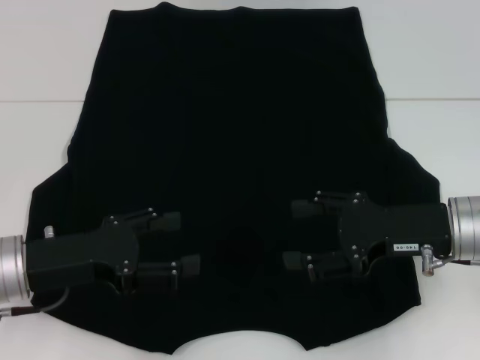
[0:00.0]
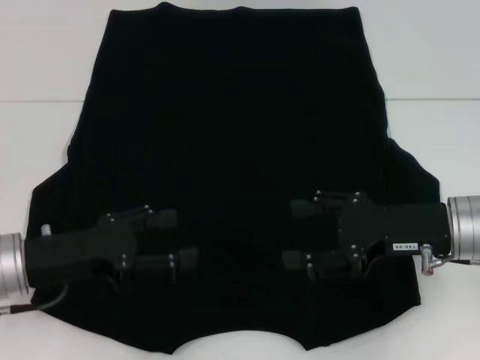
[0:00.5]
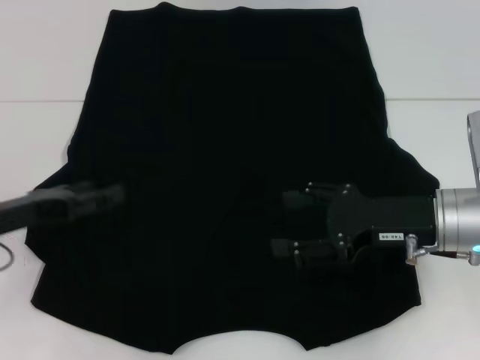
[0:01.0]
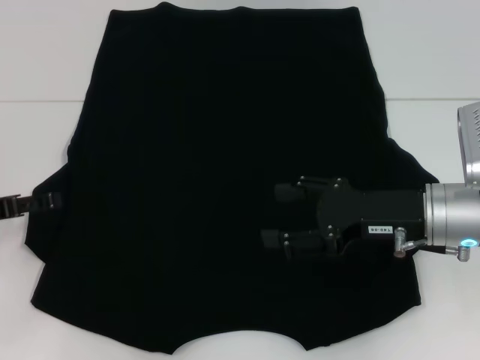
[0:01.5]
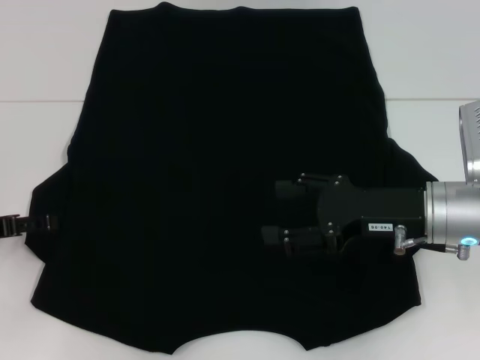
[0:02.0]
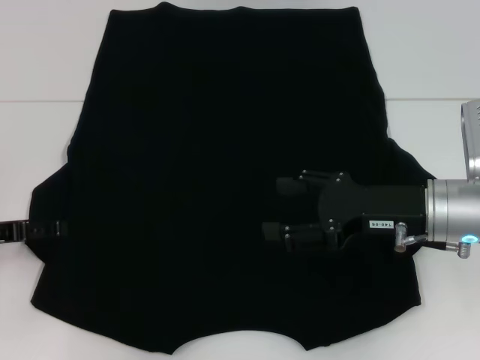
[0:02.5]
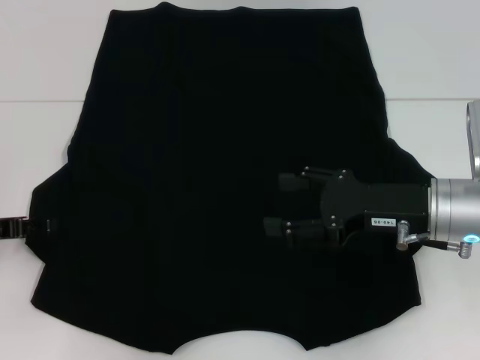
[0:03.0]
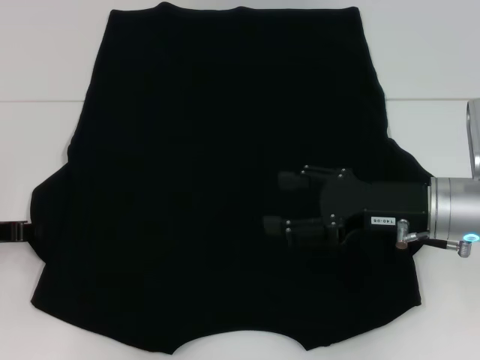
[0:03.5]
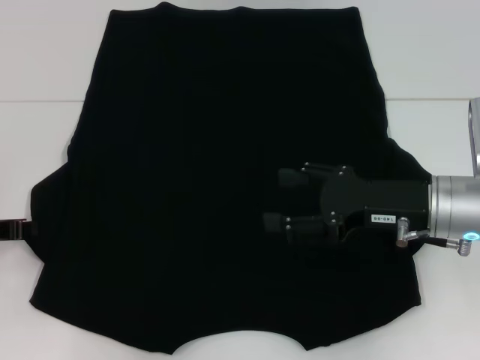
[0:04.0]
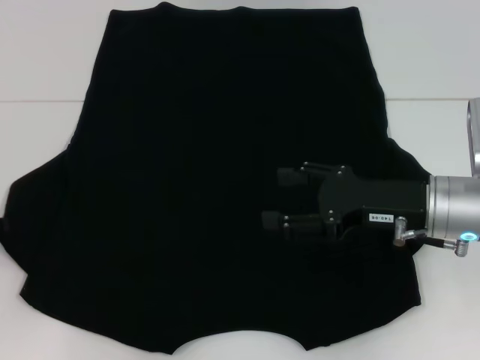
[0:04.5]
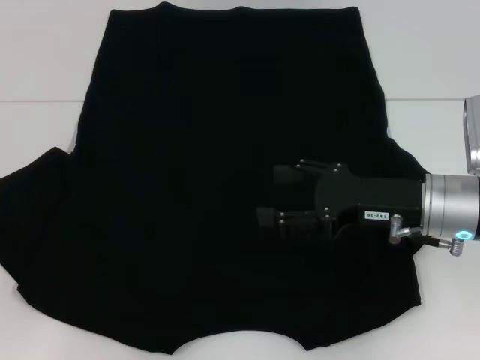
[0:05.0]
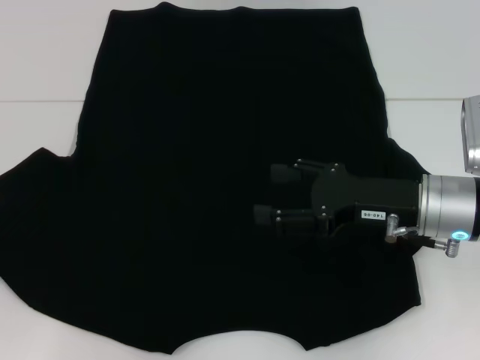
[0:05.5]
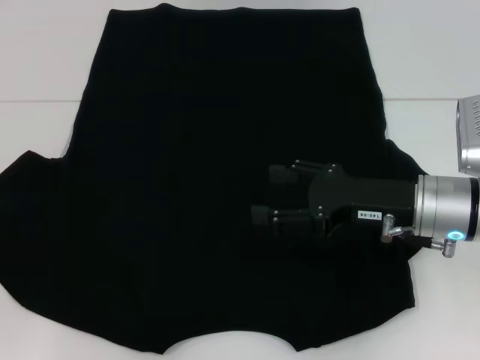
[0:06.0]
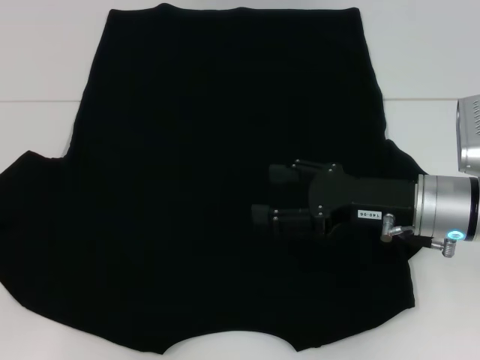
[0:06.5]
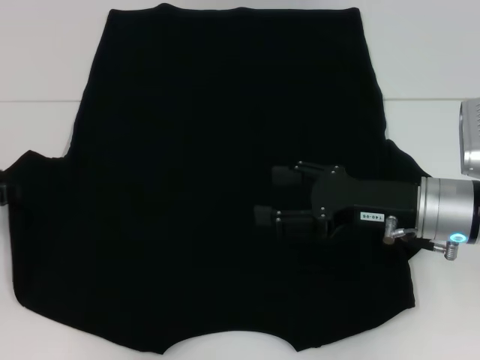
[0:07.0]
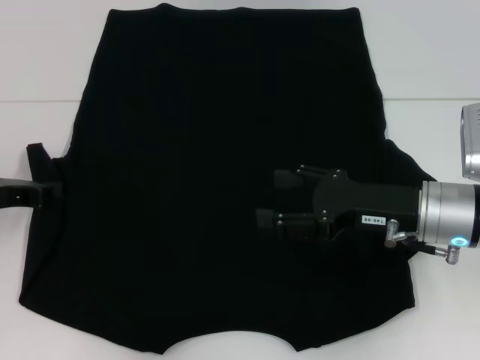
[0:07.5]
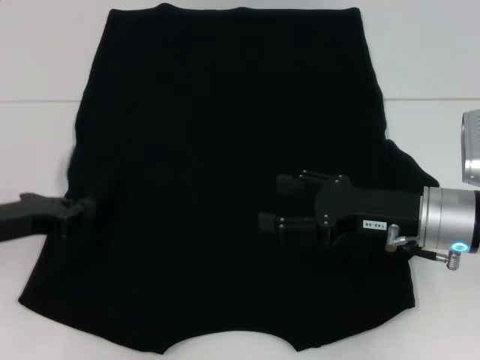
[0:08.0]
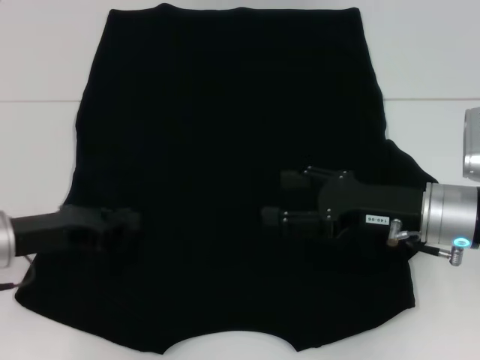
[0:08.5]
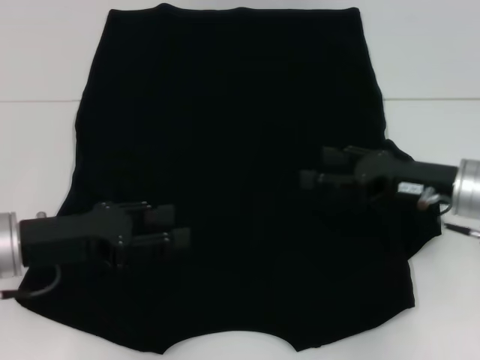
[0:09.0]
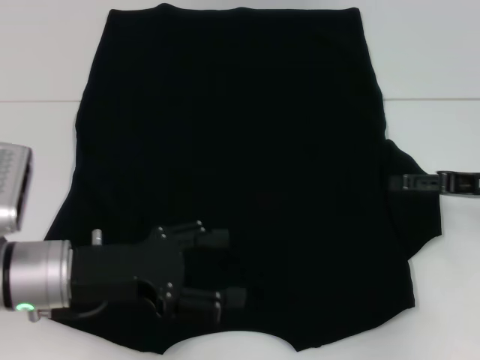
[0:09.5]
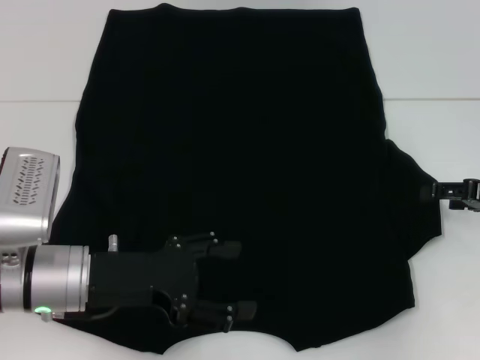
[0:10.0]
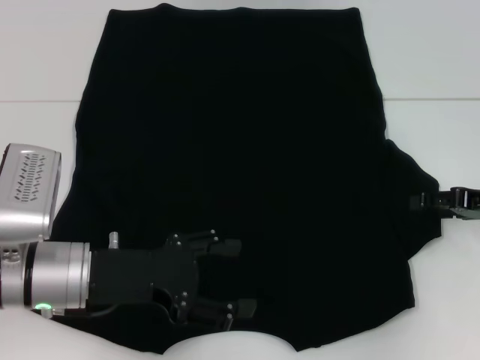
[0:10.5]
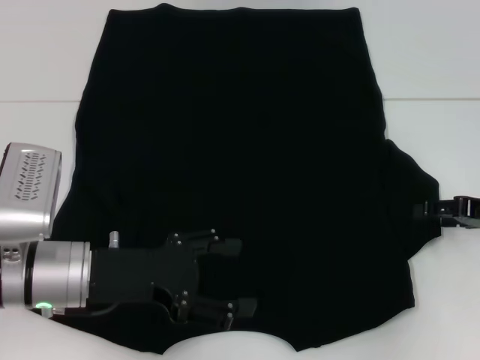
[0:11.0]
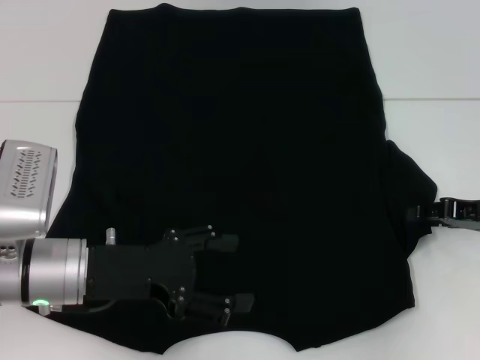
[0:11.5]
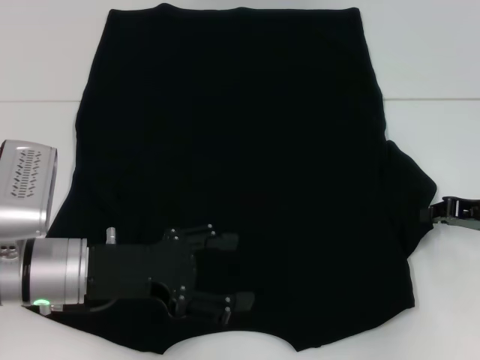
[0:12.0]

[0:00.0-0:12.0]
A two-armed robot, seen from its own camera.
Step, 0:00.0 to 0:08.5: Fold the bottom left sleeve with your left hand.
0:00.0 to 0:02.0: The left gripper travels to the left by some 10 cm.
0:04.0 to 0:06.0: The left gripper shifts about 5 cm to the left.
0:06.0 to 0:08.0: The left gripper is displaced to the right by roughly 10 cm.
0:08.0 to 0:10.0: Both grippers travel together to the right, roughly 10 cm. The left gripper opens.
0:10.0 to 0:12.0: The right gripper closes its fingers.

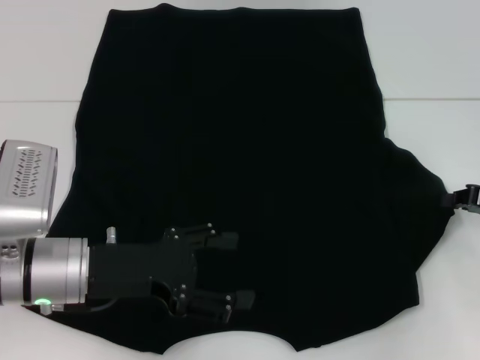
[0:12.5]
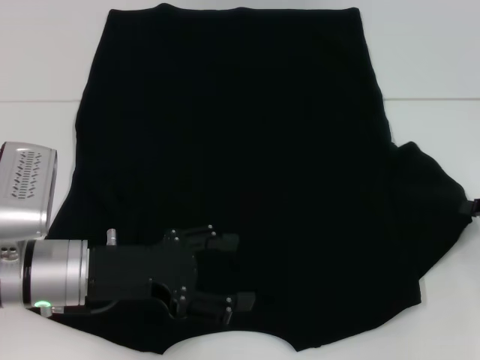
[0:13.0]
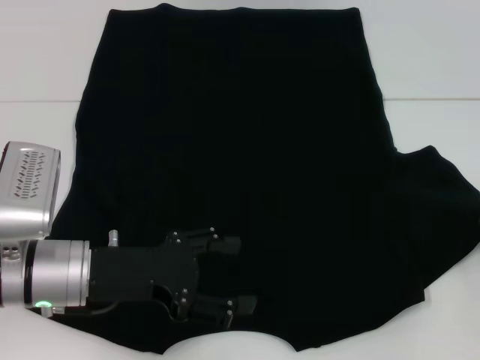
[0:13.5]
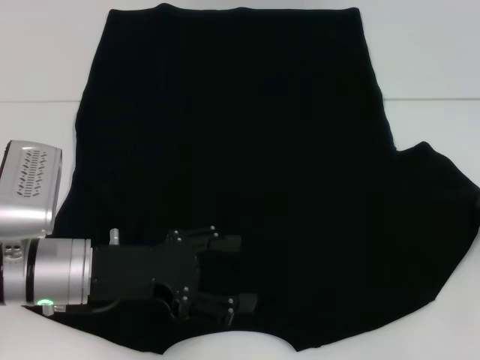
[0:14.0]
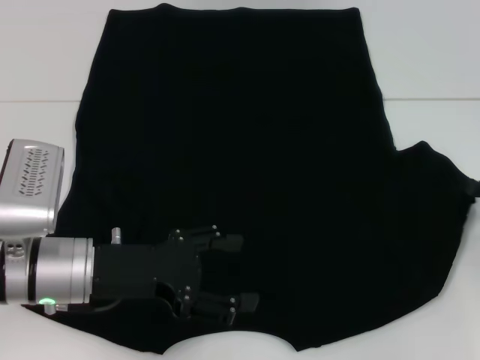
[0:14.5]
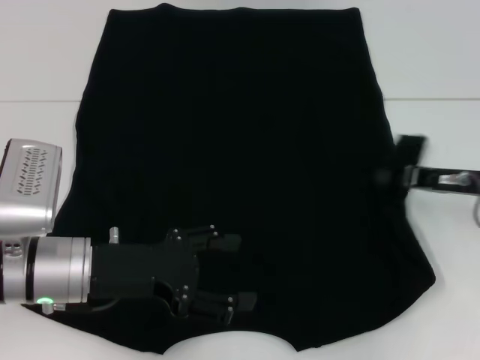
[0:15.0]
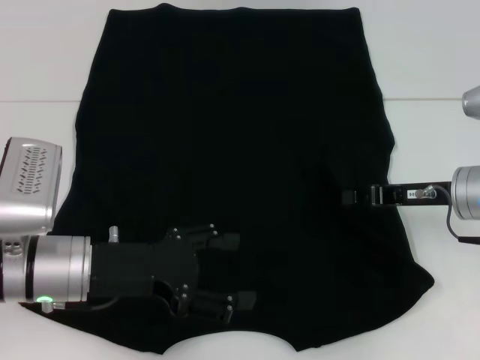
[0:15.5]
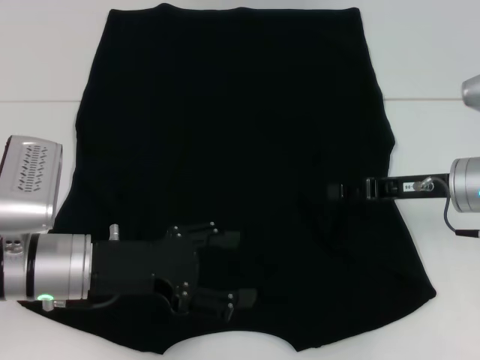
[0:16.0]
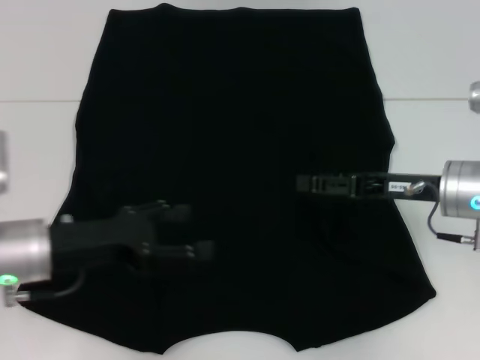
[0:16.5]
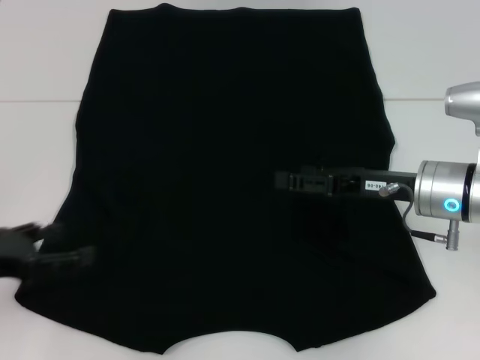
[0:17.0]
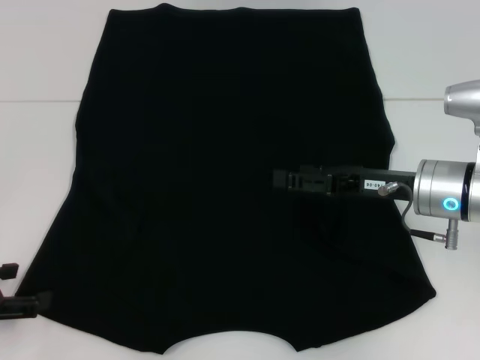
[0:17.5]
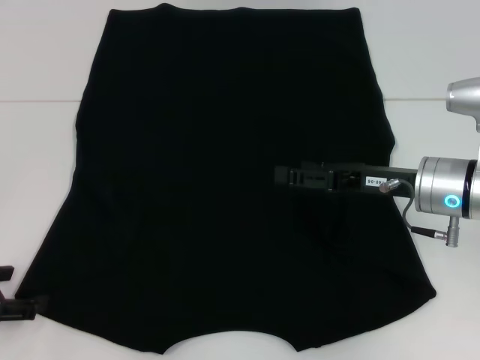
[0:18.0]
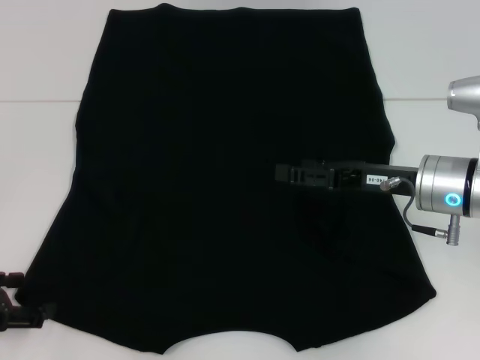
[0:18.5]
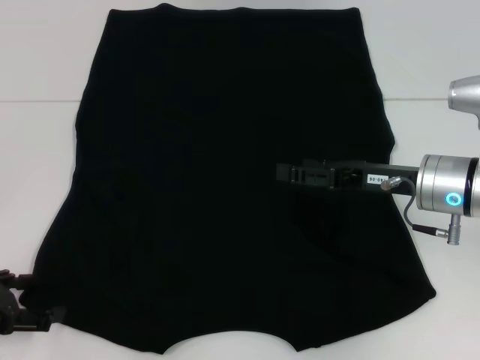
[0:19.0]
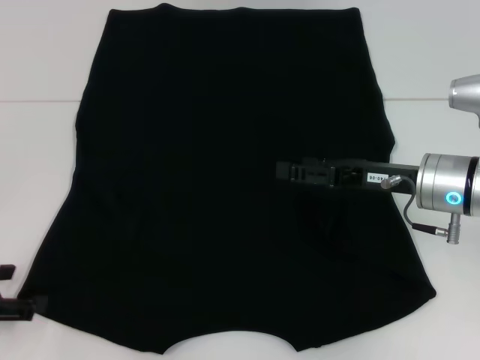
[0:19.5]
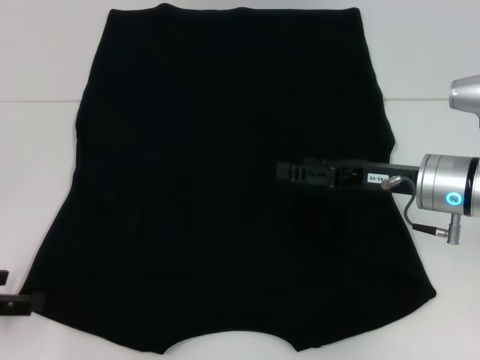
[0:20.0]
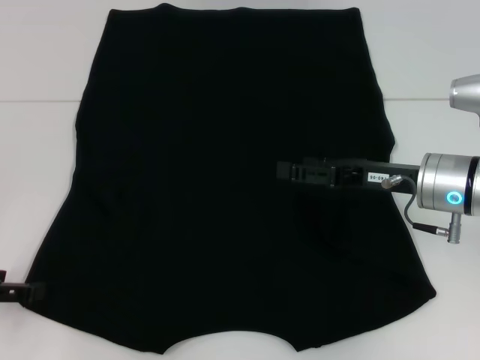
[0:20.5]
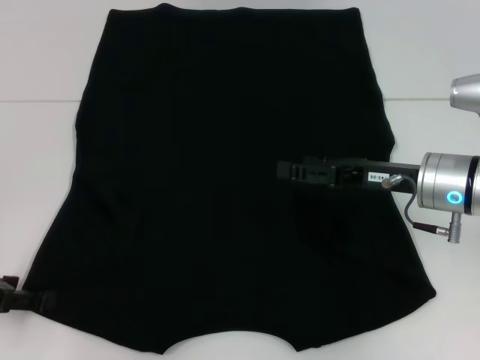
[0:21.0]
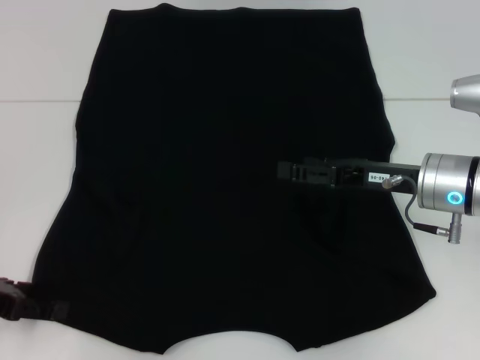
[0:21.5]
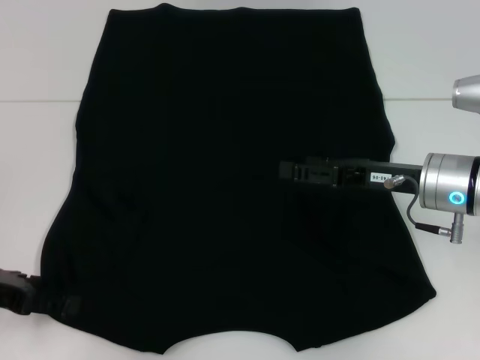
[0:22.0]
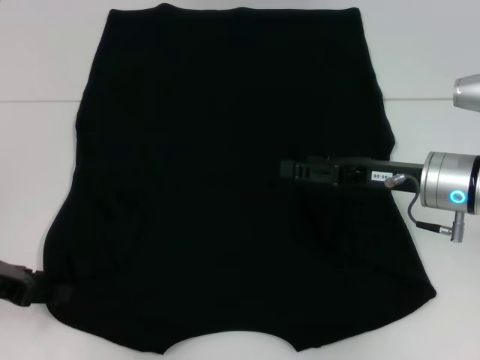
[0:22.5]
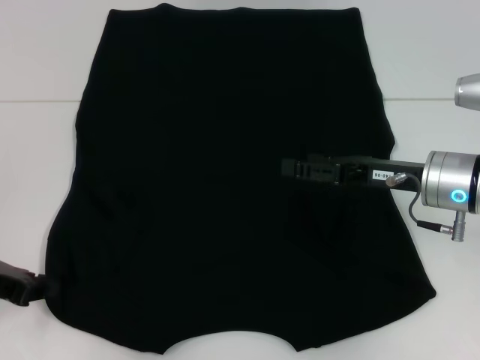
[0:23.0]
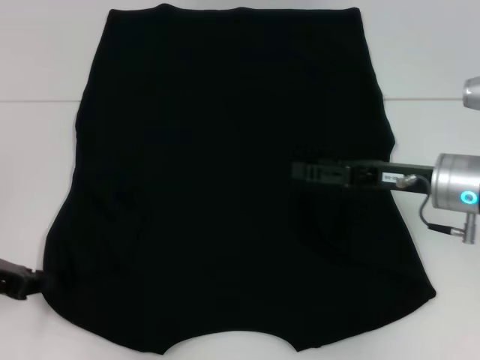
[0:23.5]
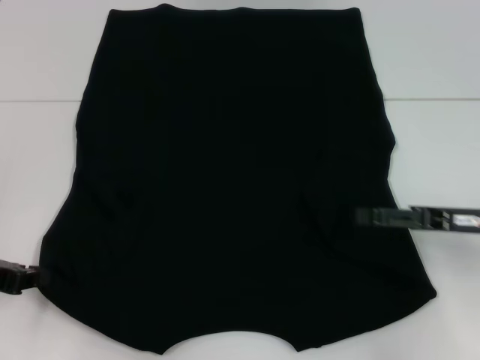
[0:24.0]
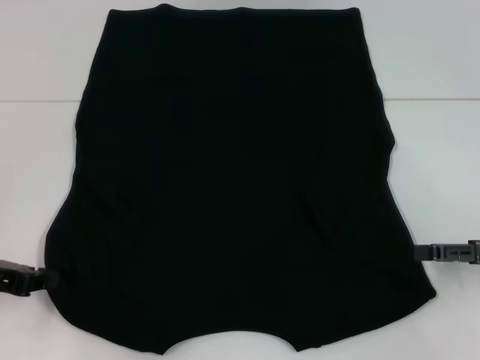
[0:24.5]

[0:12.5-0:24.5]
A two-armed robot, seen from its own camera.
Step, 0:12.5 to 0:16.0: Fold the bottom right sleeve with your right hand.
Step, 0:16.5 to 0:23.0: Grab the bottom left corner with your left hand.
0:14.5 to 0:16.5: The right gripper moves to the left, approximately 15 cm, and opens up.
0:16.5 to 0:18.5: The right gripper opens up. The left gripper moves to the left, some 10 cm.
0:18.5 to 0:22.5: The grippers make only small movements.
0:22.5 to 0:24.5: The left gripper closes up. Meanwhile the right gripper is displaced to the right and backward by about 15 cm.

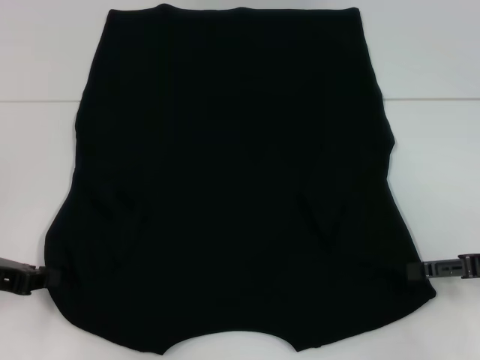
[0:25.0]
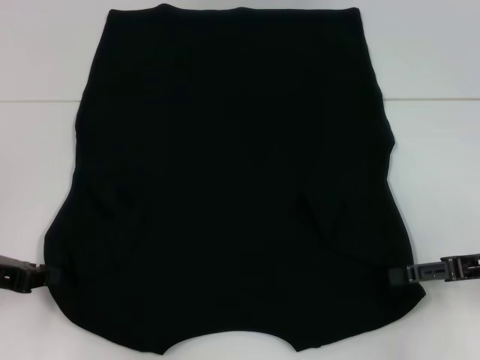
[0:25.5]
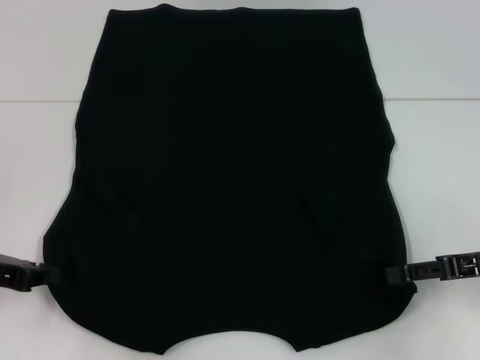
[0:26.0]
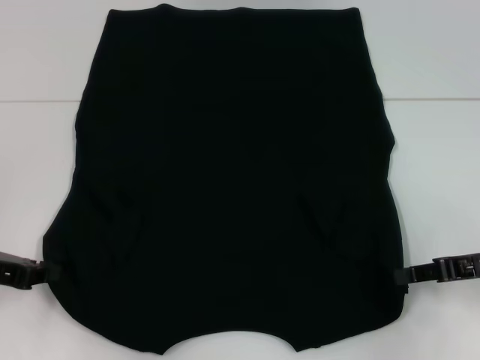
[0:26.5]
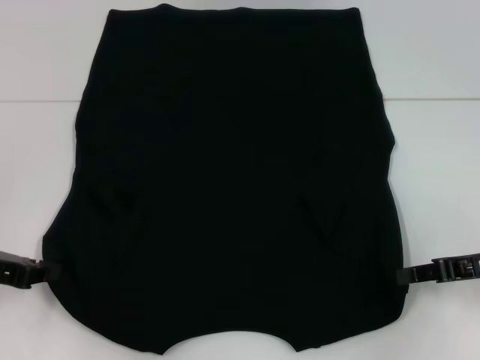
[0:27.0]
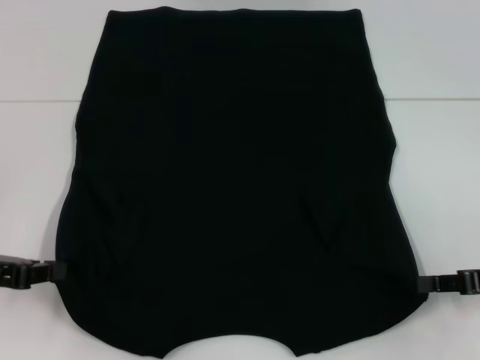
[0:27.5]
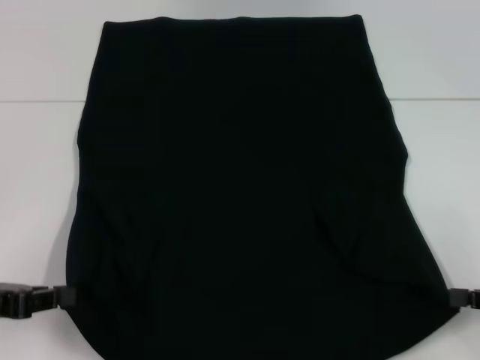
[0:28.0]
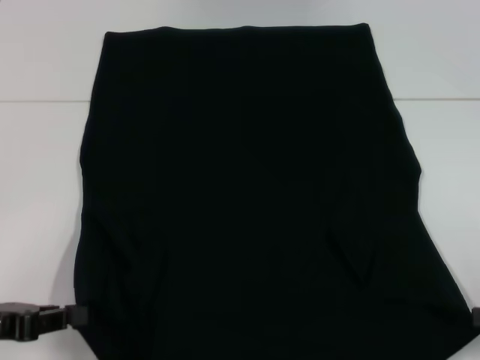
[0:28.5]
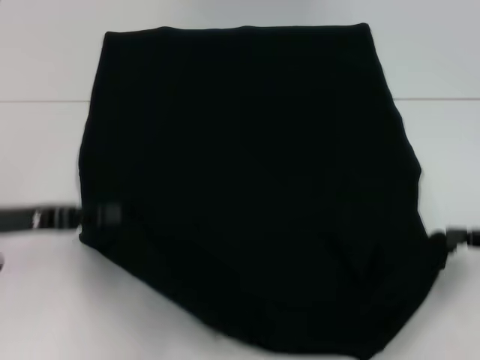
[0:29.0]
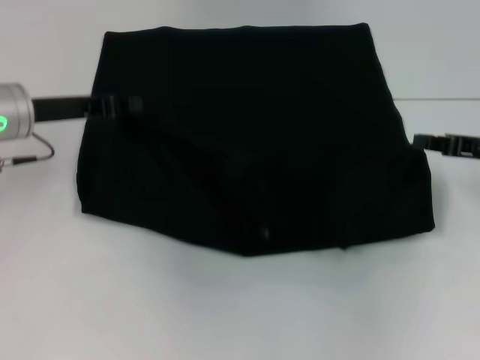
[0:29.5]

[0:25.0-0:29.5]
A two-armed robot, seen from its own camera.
0:25.0 to 0:27.0: The right gripper closes.
0:27.0 to 0:29.5: The left gripper shifts approximately 15 cm forward and to the right. Meanwhile the right gripper goes approximately 5 cm forward.
